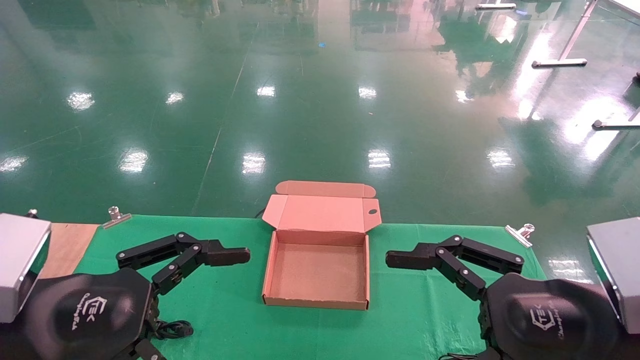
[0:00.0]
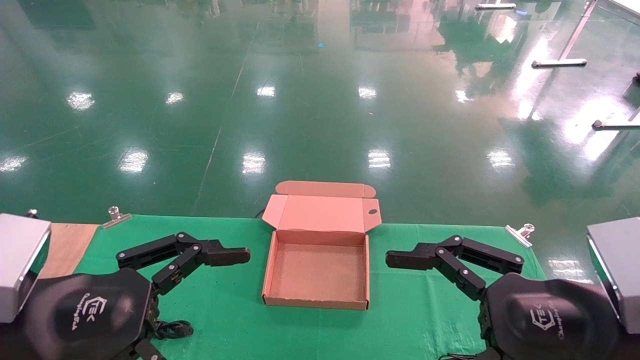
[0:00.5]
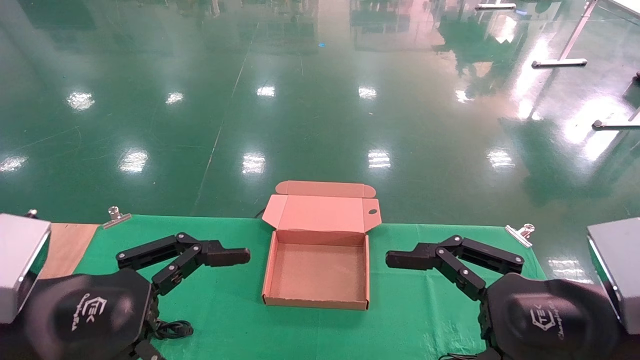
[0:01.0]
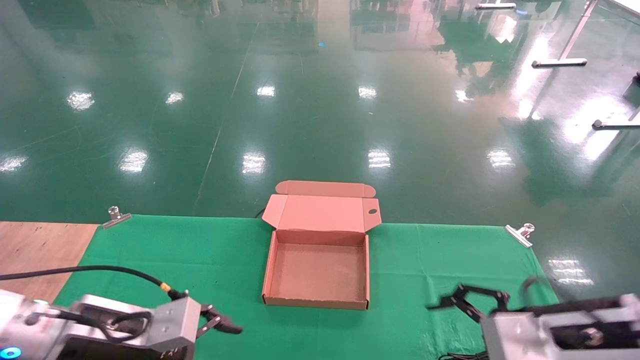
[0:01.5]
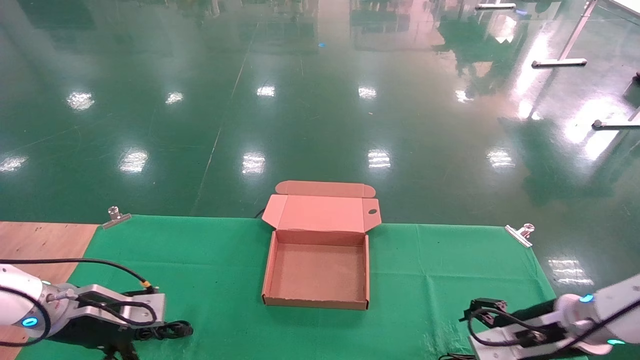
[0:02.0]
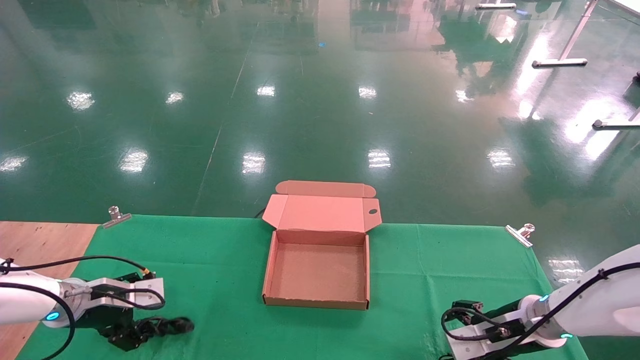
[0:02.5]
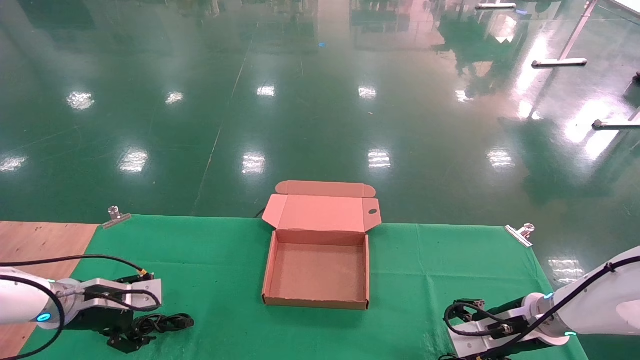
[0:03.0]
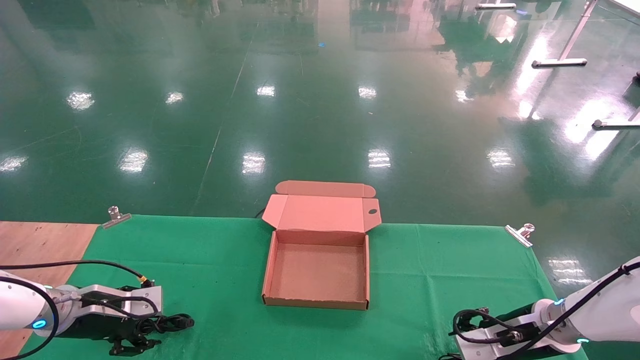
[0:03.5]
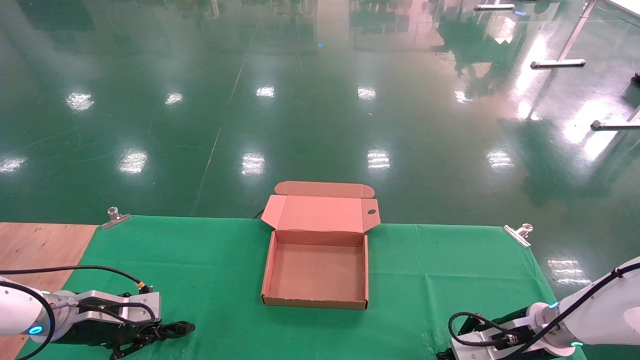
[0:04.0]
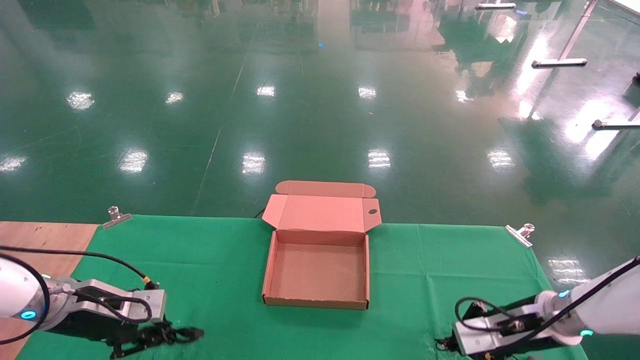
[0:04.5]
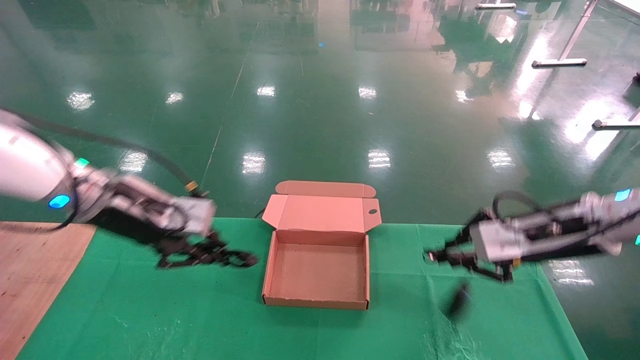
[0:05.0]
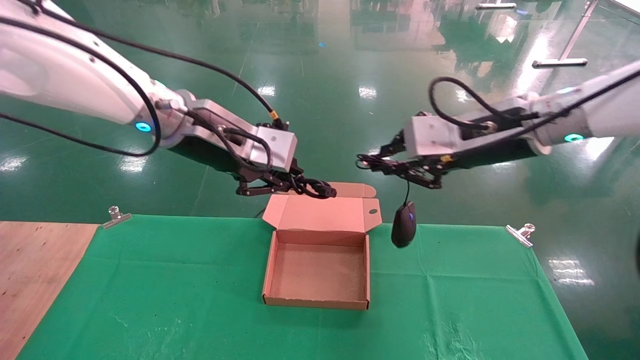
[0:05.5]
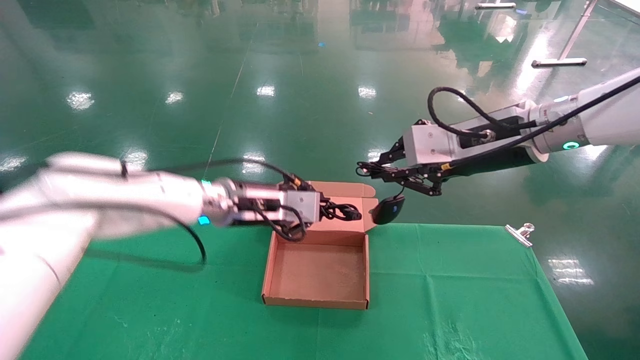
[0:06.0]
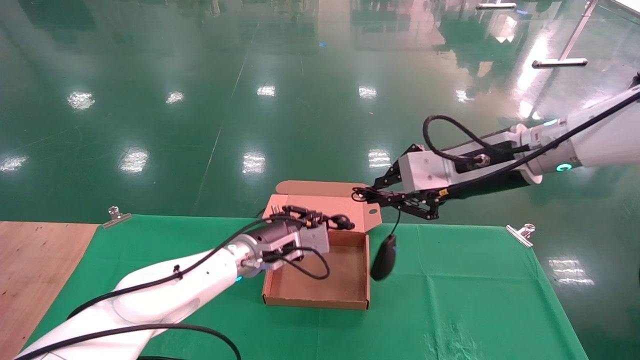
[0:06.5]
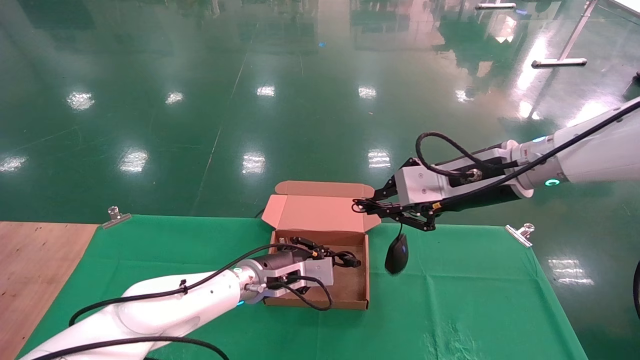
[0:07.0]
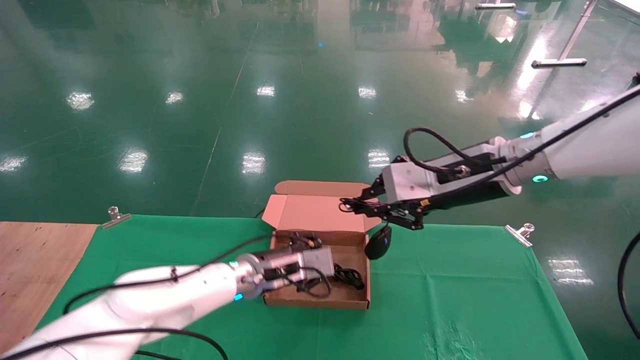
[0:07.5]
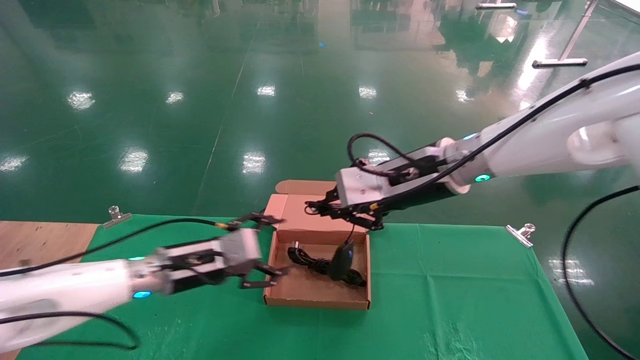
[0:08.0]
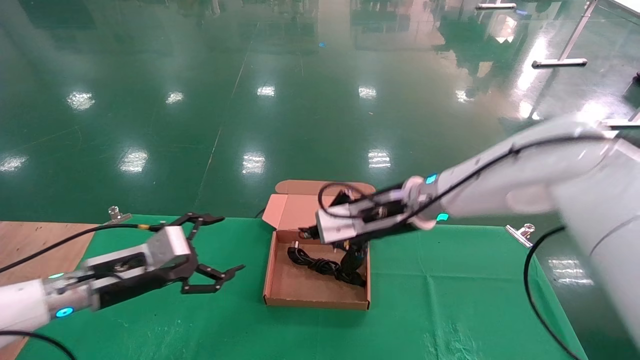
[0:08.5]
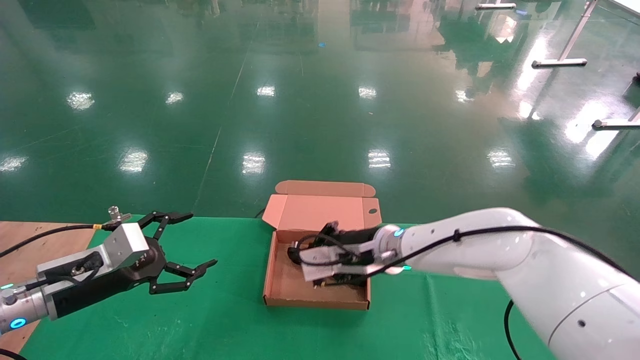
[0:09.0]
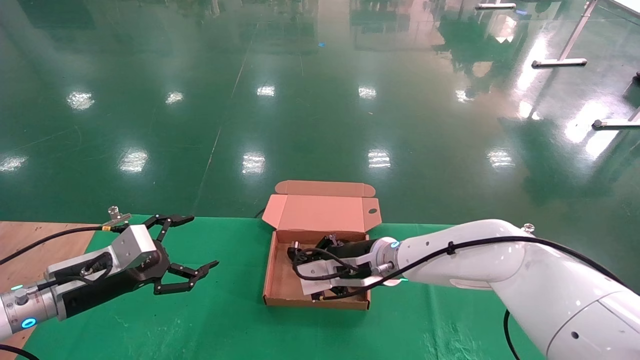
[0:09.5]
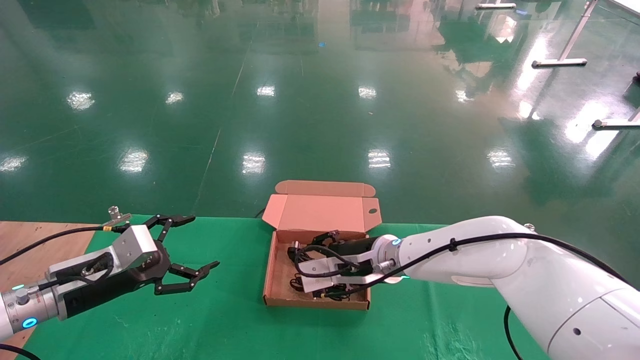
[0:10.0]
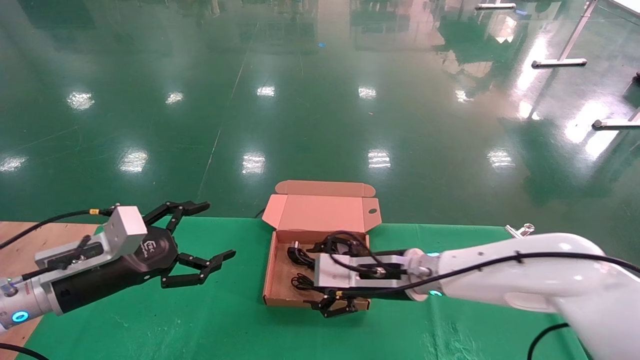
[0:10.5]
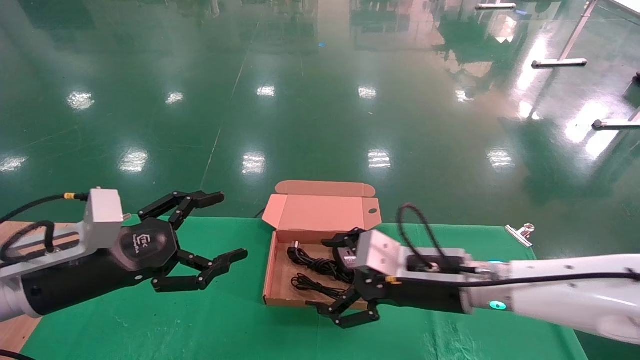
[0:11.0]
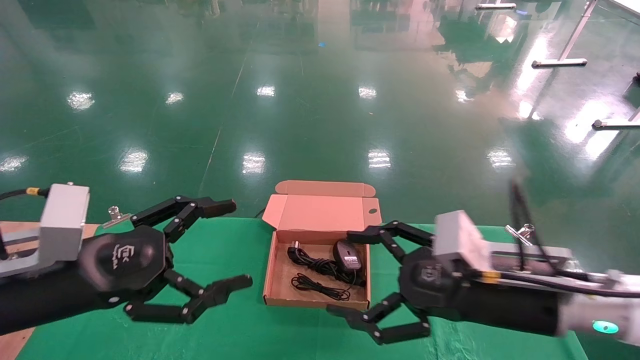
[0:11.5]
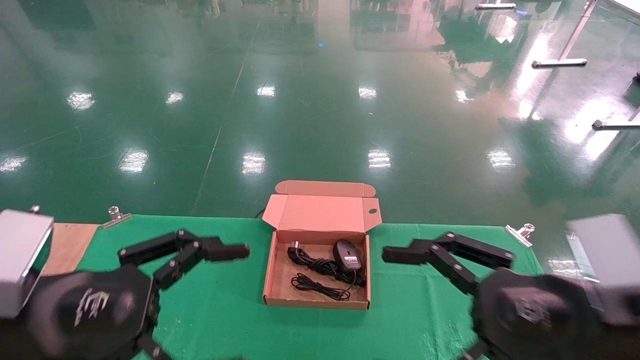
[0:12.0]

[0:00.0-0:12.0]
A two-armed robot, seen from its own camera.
Step, 0:01.5 to 0:05.0: Grab and lift both the mouse and power cord from the accessory packaging area at the same time.
Step, 0:05.5 to 0:10.0: Place the mouse and power cord into the box.
0:00.0 to 0:02.0: The right gripper heads forward and downward, covering roughly 25 cm; the left gripper travels forward, downward and to the left by roughly 25 cm.
0:02.0 to 0:04.0: The right gripper ends up some 5 cm from where it was, and closes its fingers. Meanwhile the left gripper closes its fingers.
0:04.0 to 0:06.0: The left gripper moves to the right and upward, roughly 30 cm. Meanwhile the right gripper moves upward, about 30 cm.
0:06.0 to 0:08.0: The right gripper travels to the left by approximately 10 cm. Meanwhile the left gripper shifts about 15 cm downward and to the left, and opens.
0:08.0 to 0:10.0: The right gripper heads downward, covering roughly 15 cm. The left gripper travels to the left by about 15 cm, and opens.
0:10.0 to 0:12.0: The left gripper moves backward, upward and to the right, some 25 cm, while the right gripper is displaced backward and to the right by some 30 cm, and opens up.
